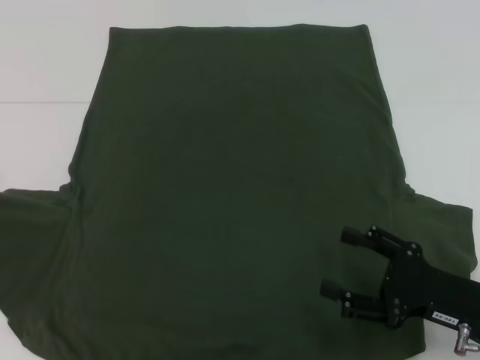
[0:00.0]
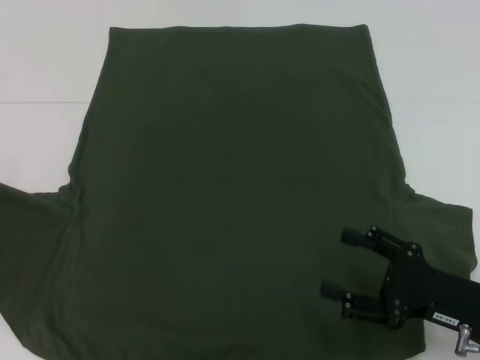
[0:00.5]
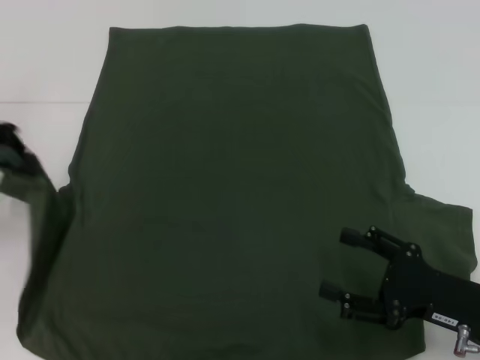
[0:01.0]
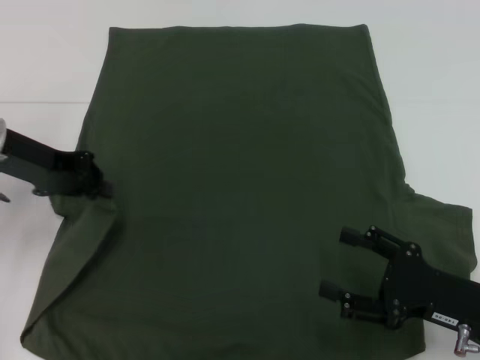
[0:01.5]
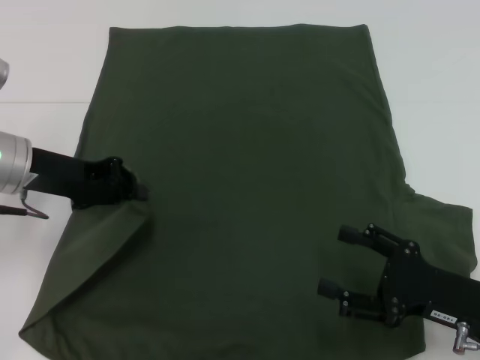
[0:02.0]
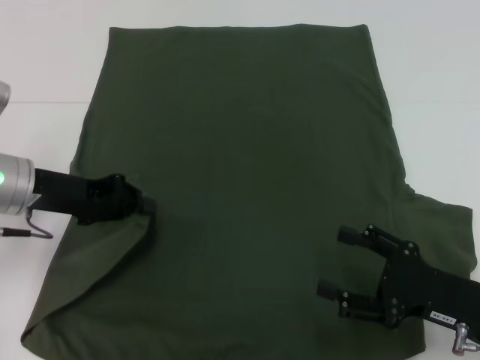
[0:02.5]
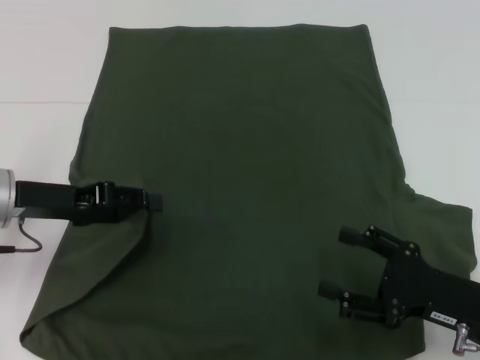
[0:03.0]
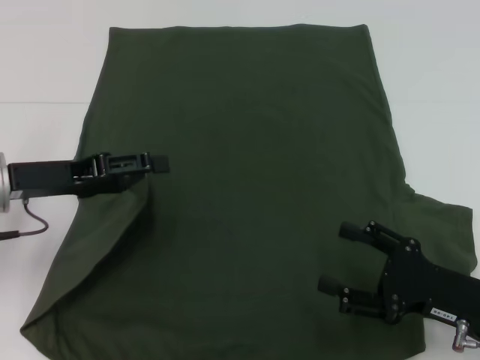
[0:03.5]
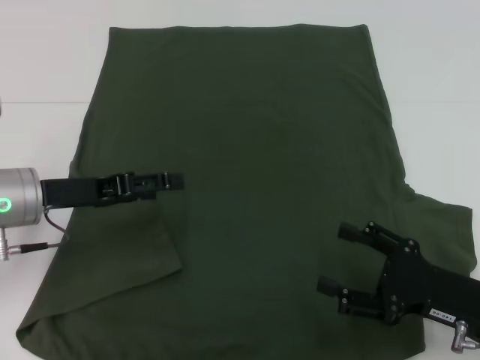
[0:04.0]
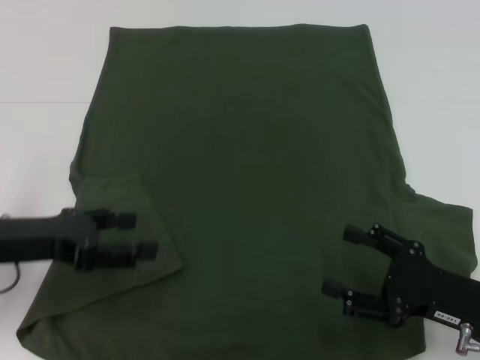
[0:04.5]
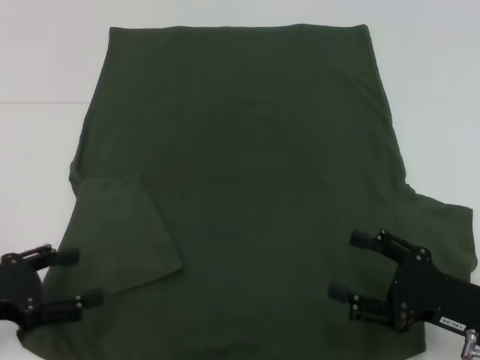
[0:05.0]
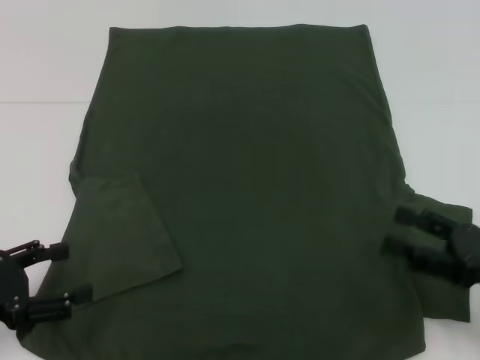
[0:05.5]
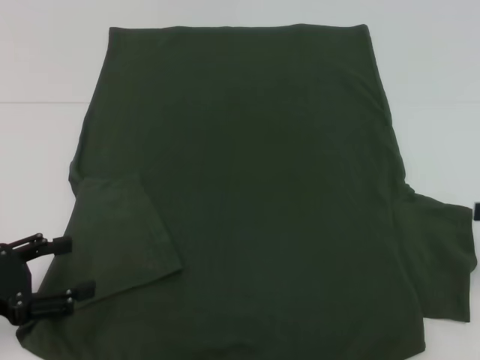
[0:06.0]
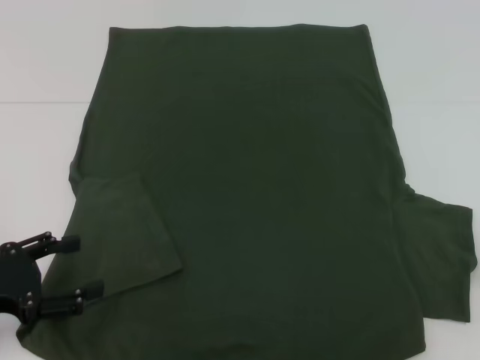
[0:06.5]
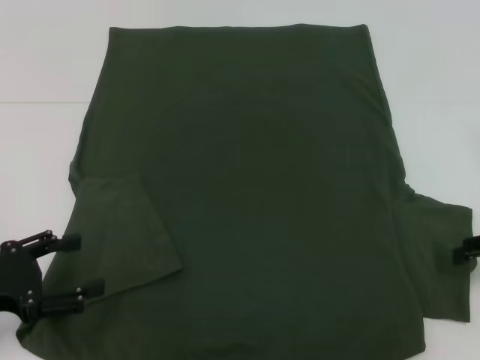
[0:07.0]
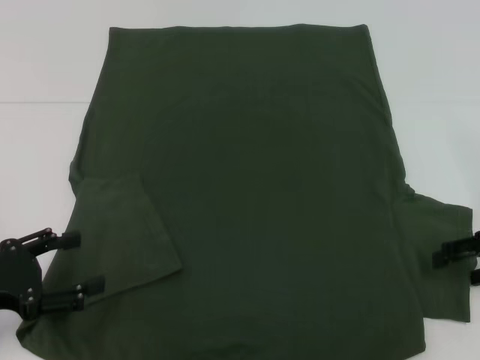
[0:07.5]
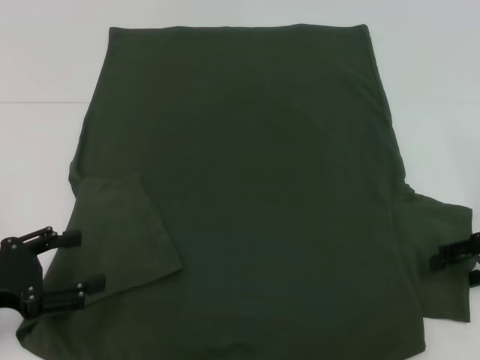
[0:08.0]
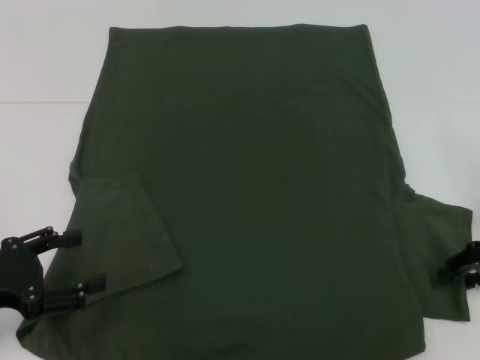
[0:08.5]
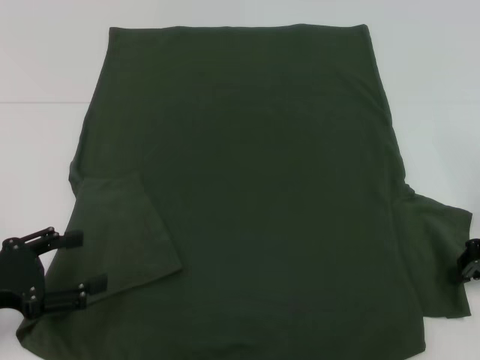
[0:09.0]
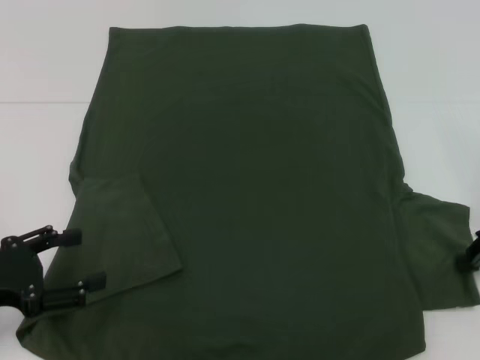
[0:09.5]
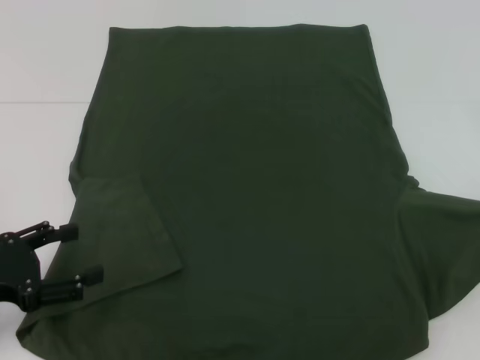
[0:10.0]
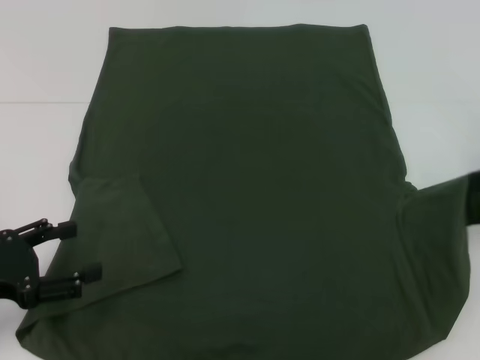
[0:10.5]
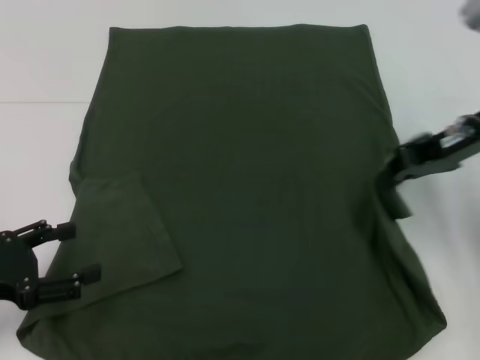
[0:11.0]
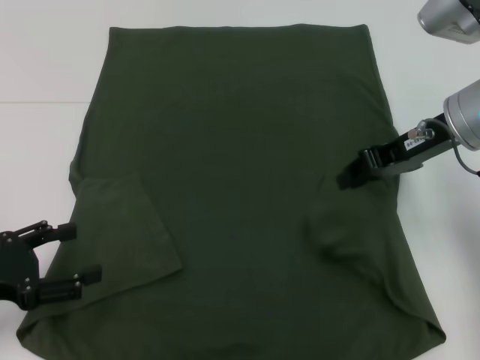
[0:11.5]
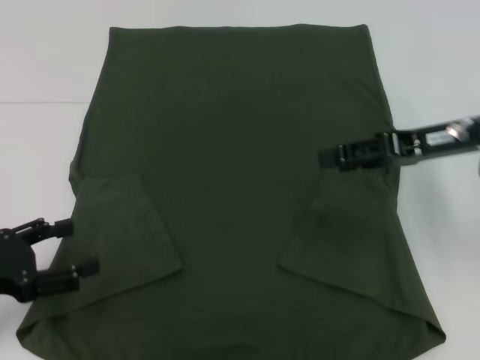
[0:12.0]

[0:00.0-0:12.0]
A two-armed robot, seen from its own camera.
Step, 0:00.0 to 0:03.5: Fold the bottom left sleeve with your left hand.
Step, 0:04.0 to 0:11.5: Fold the bottom right sleeve with your right hand.
0:00.0 to 0:02.0: The left gripper shifts roughly 15 cm to the right.
0:02.0 to 0:04.0: The left gripper changes place by roughly 5 cm, and opens up.
0:04.0 to 0:06.0: The right gripper heads to the right and upward, covering roughly 15 cm, while the left gripper is displaced backward and to the left by some 15 cm.
0:06.0 to 0:08.0: The right gripper changes place by roughly 10 cm.
0:08.0 to 0:10.0: The right gripper shifts about 5 cm upward, and closes its fingers.
0:10.0 to 0:12.0: The right gripper shifts approximately 15 cm to the left, and opens.

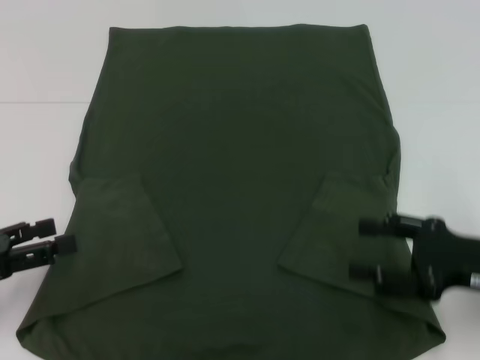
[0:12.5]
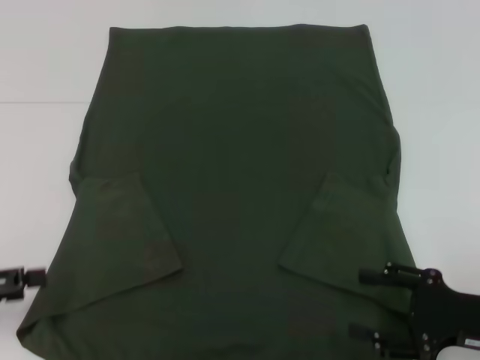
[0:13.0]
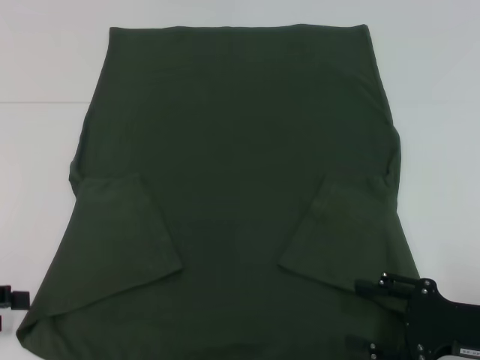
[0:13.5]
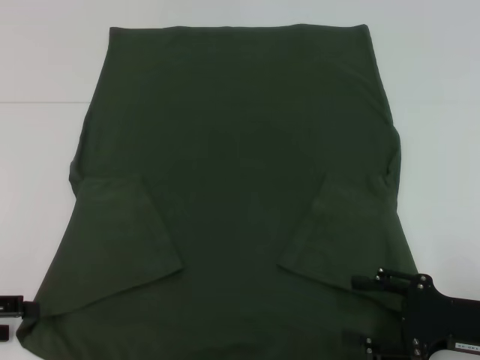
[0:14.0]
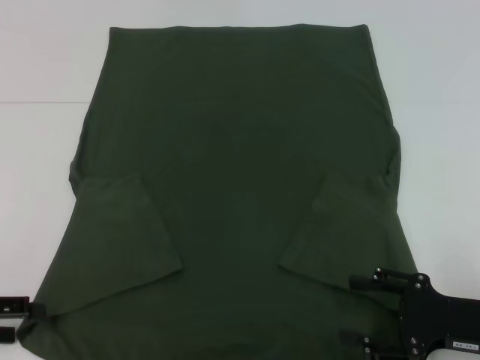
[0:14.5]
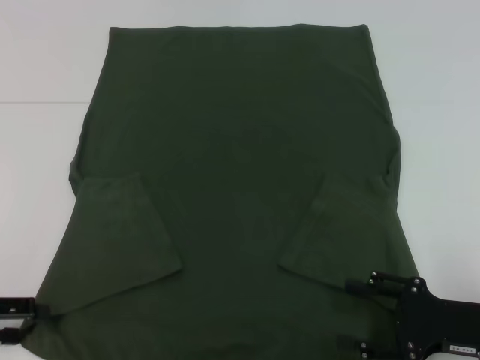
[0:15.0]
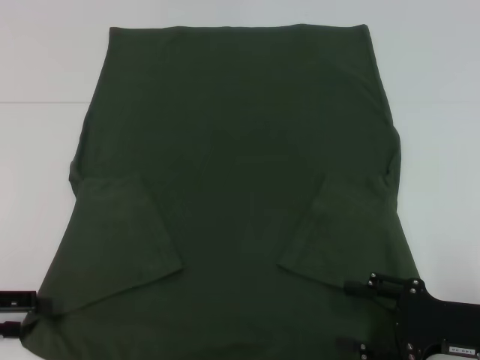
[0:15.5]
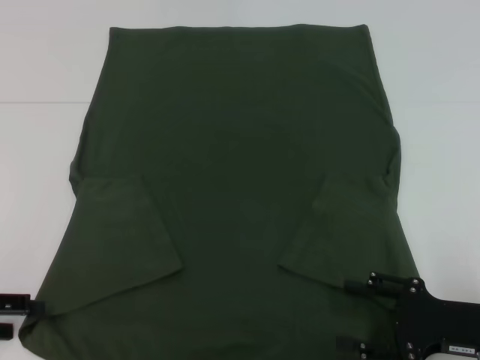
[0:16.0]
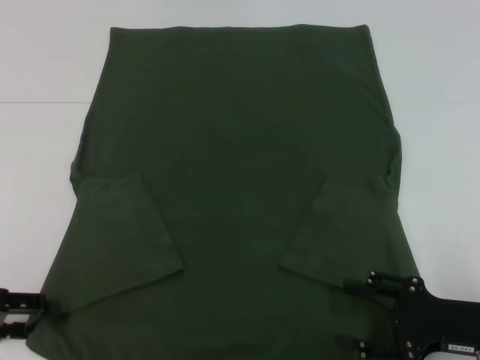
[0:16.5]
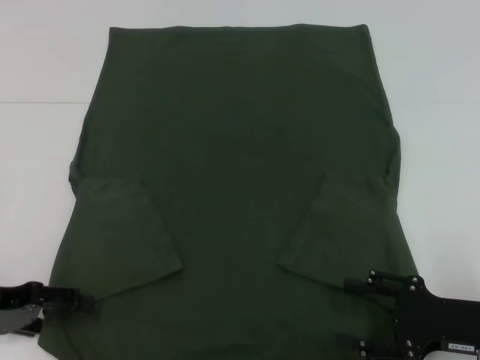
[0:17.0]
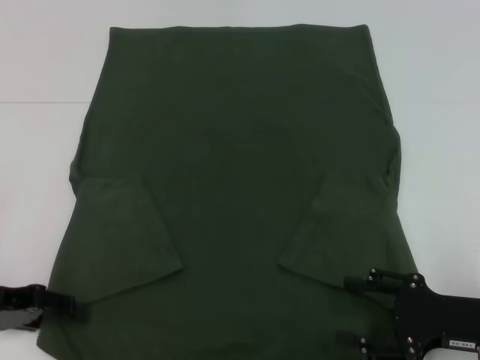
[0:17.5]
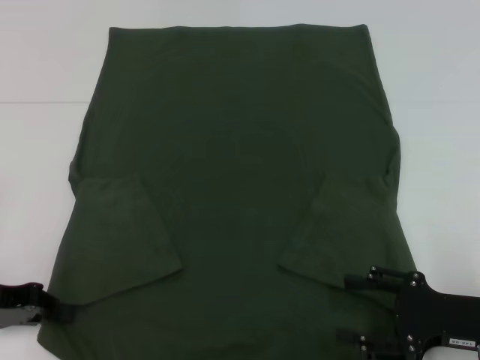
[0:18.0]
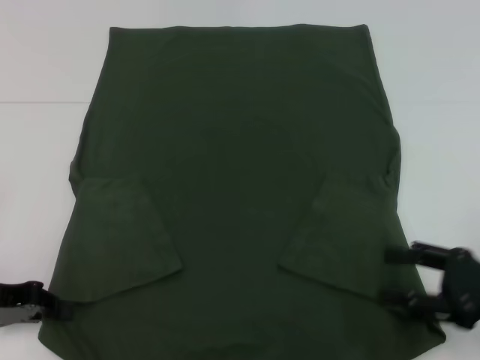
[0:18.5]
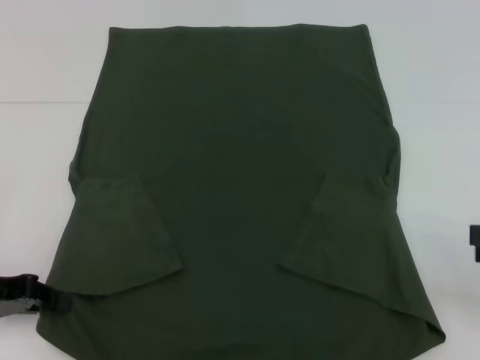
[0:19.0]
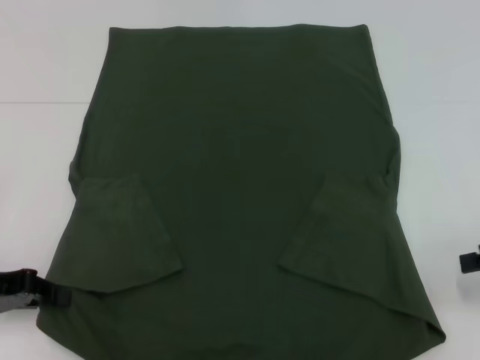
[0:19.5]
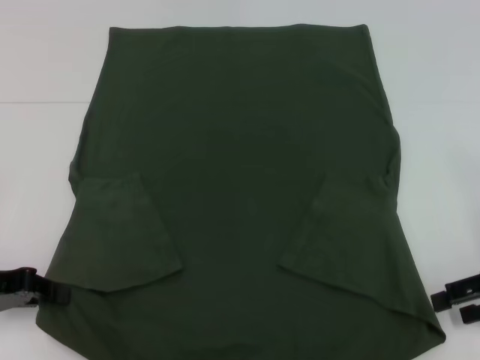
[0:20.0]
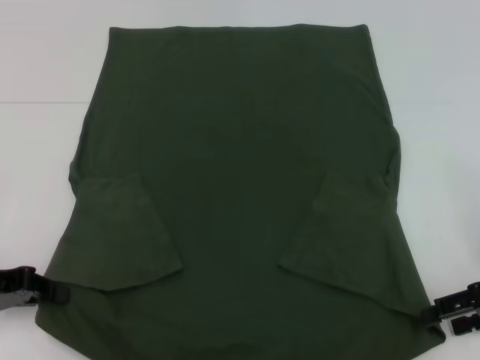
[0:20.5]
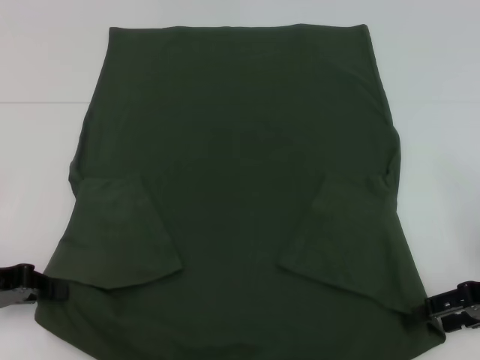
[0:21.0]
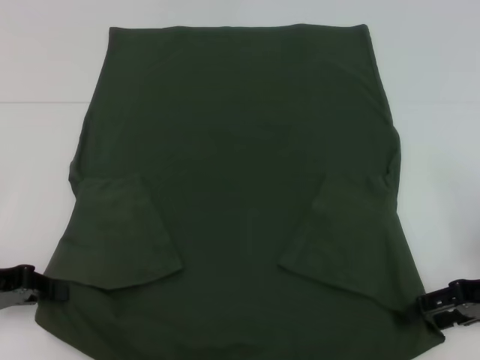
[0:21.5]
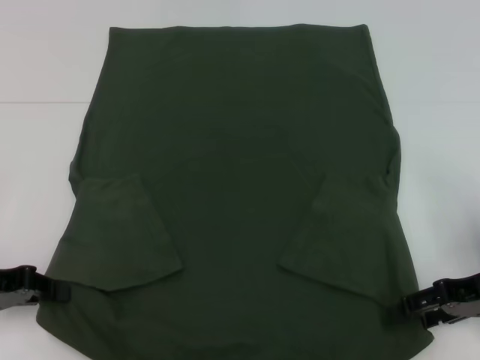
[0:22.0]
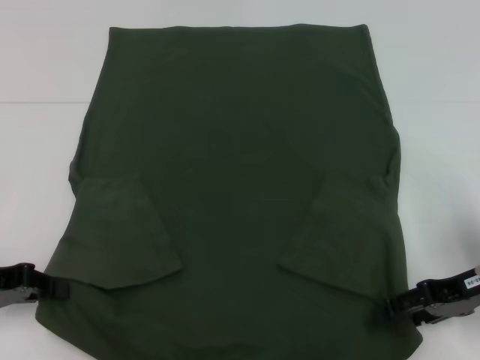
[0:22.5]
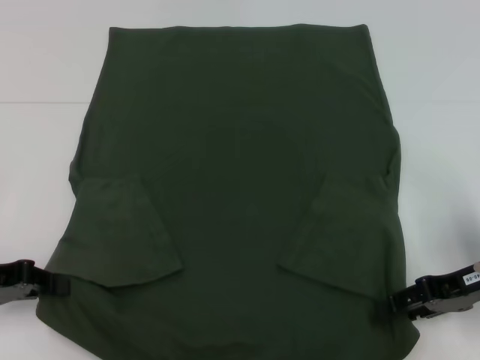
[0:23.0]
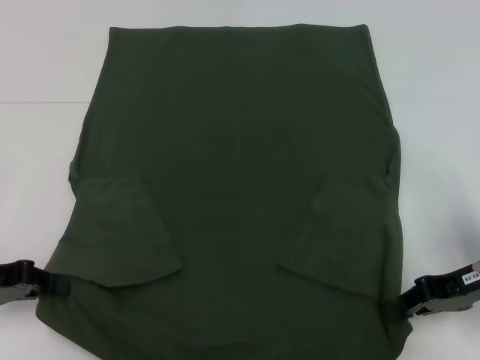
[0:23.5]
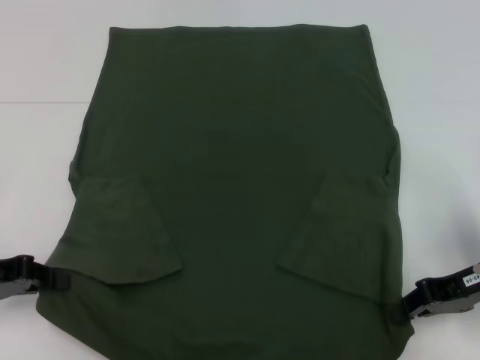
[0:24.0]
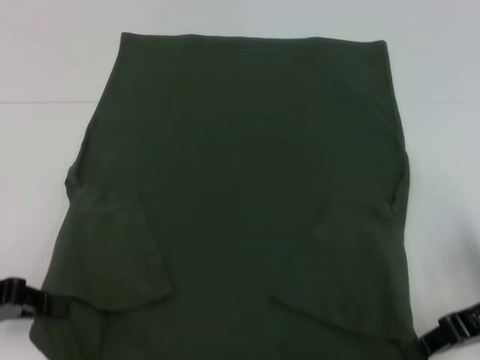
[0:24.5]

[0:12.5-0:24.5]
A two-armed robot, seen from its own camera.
Step, 0:12.5 to 0:18.0: Grab the bottom left corner with your left hand.
Step, 0:18.5 to 0:24.0: Grab the bottom right corner with your right hand.
0:12.5 to 0:14.5: The right gripper shifts by roughly 5 cm.
0:14.5 to 0:16.5: The grippers stay close to where they were, moving slightly.
0:16.5 to 0:18.5: The left gripper closes its fingers.
0:18.5 to 0:20.5: The right gripper shifts approximately 5 cm forward, and reaches about 10 cm to the right, then returns.
0:20.5 to 0:22.5: The grippers stay close to where they were, moving slightly.
0:22.5 to 0:24.5: The right gripper closes up.

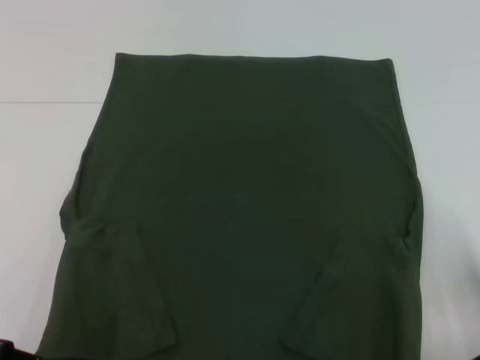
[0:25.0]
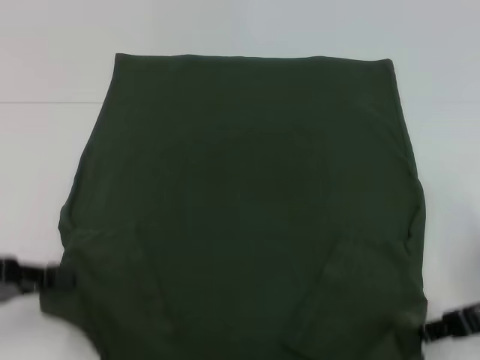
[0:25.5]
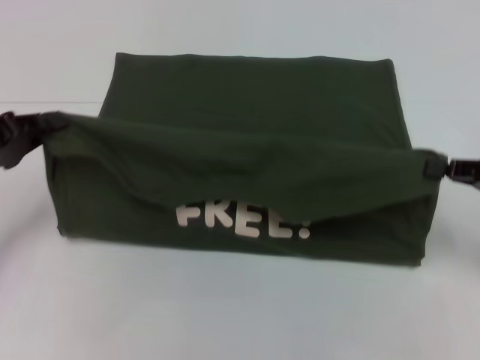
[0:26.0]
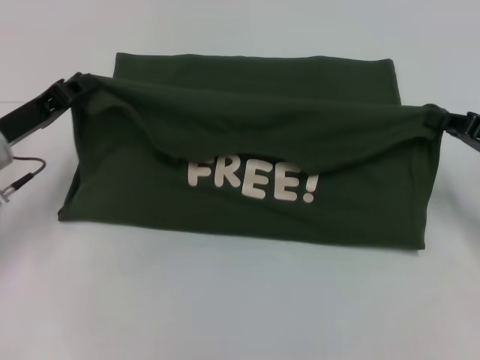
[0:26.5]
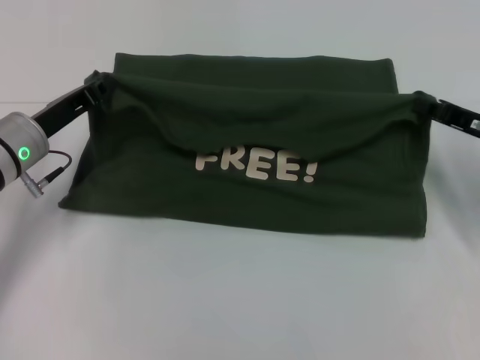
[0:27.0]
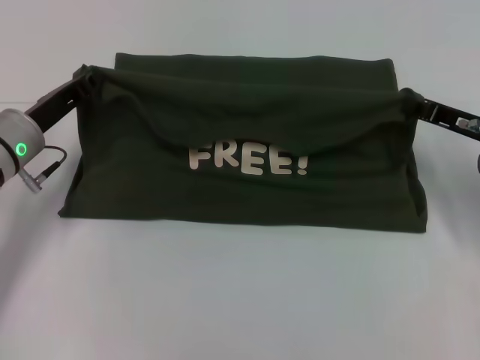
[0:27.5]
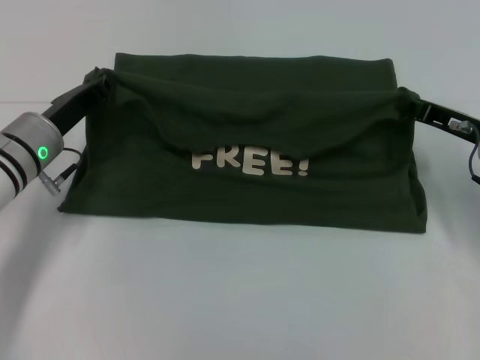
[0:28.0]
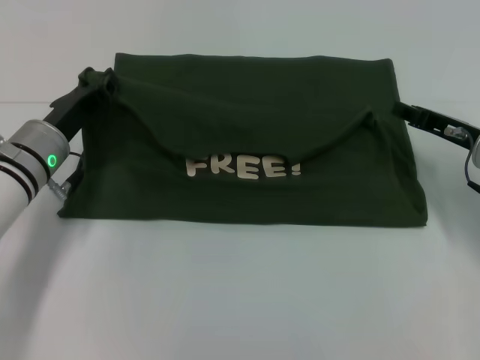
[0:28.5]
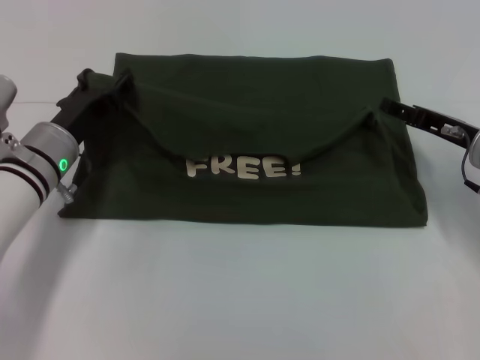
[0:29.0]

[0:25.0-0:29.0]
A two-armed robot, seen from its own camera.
0:25.0 to 0:27.0: The left gripper travels forward and to the right by some 20 cm; the right gripper travels forward by about 10 cm.
0:27.0 to 0:29.0: The right gripper opens. The left gripper opens its fingers.
